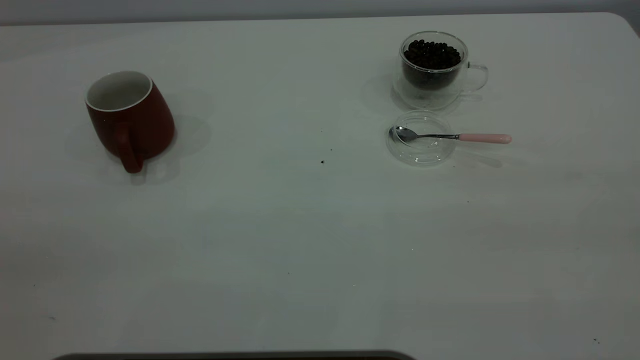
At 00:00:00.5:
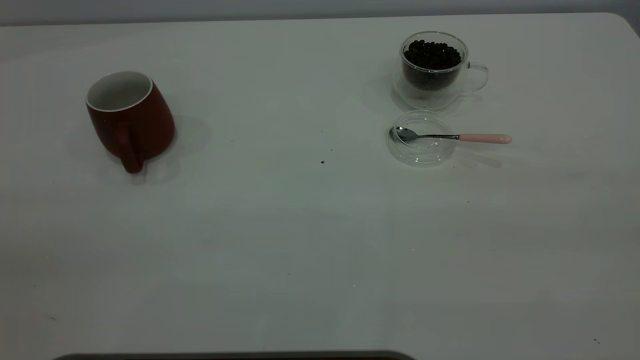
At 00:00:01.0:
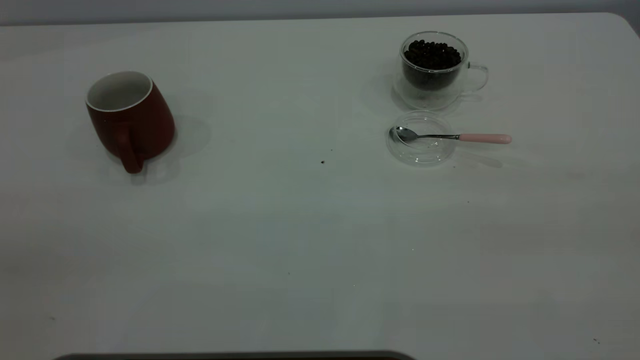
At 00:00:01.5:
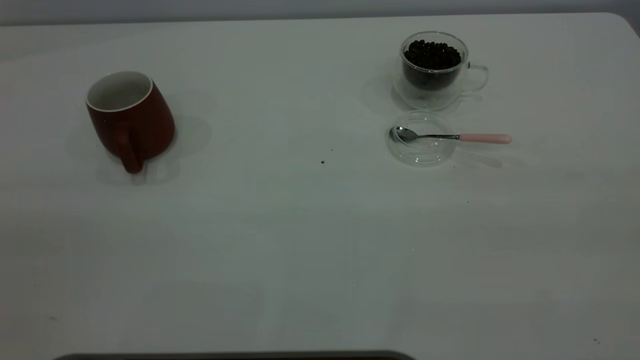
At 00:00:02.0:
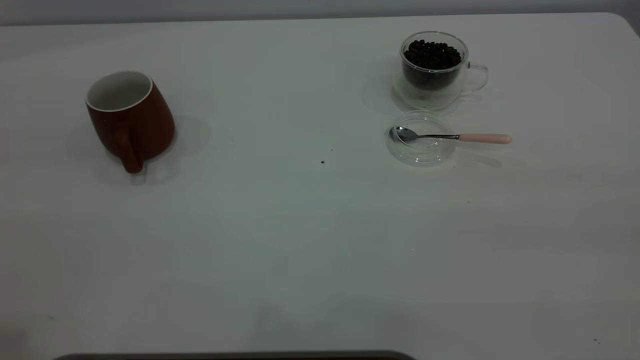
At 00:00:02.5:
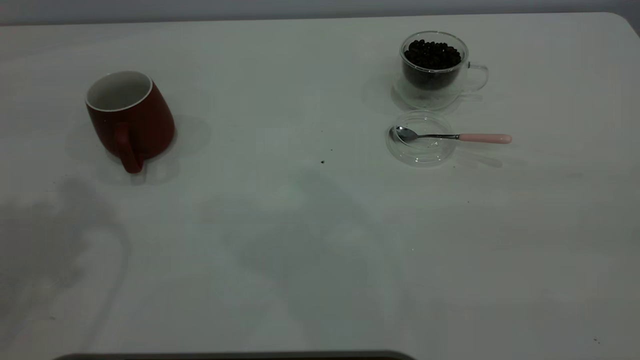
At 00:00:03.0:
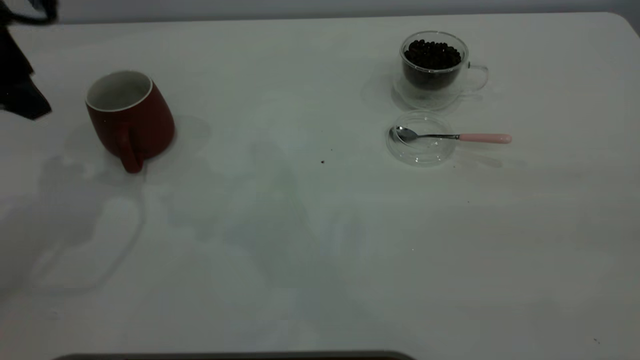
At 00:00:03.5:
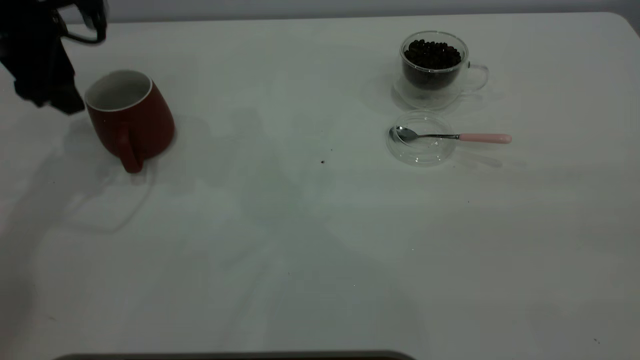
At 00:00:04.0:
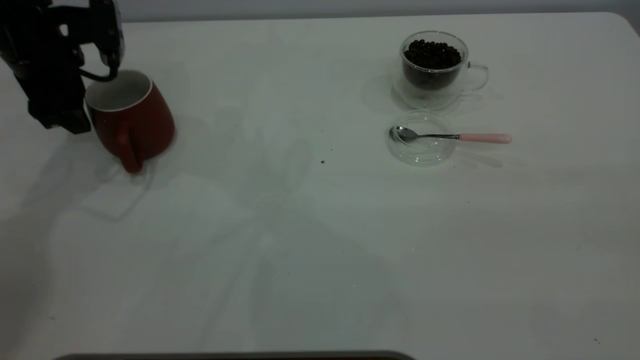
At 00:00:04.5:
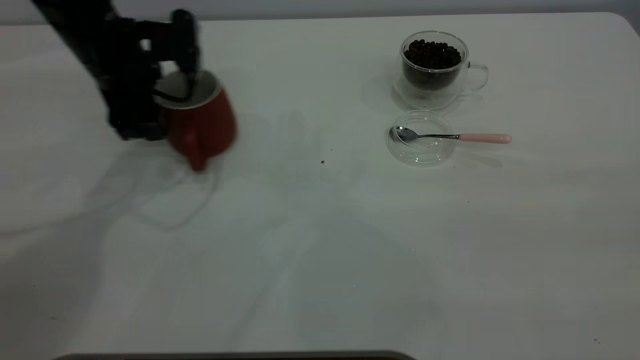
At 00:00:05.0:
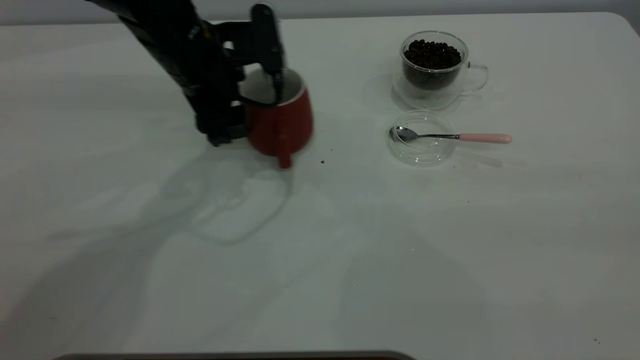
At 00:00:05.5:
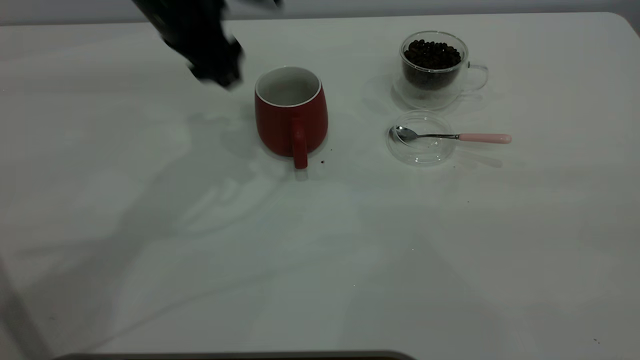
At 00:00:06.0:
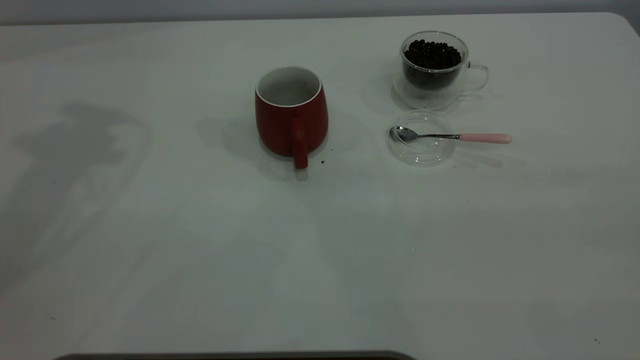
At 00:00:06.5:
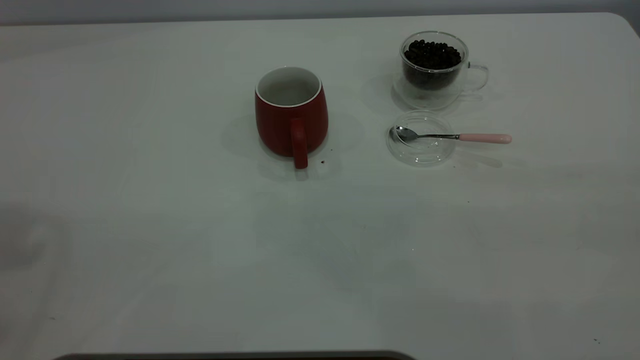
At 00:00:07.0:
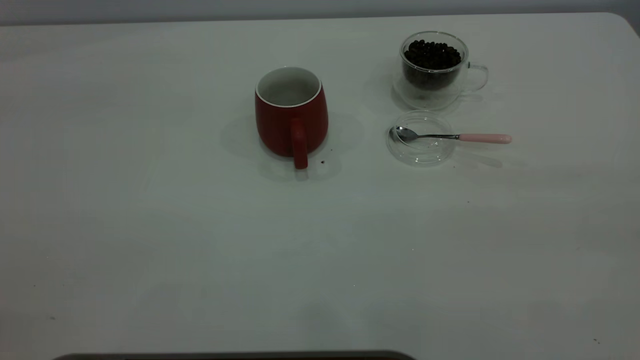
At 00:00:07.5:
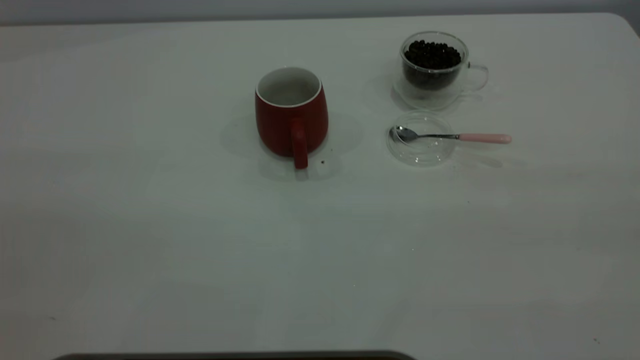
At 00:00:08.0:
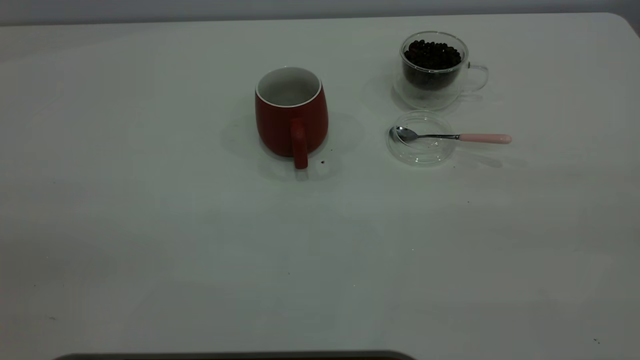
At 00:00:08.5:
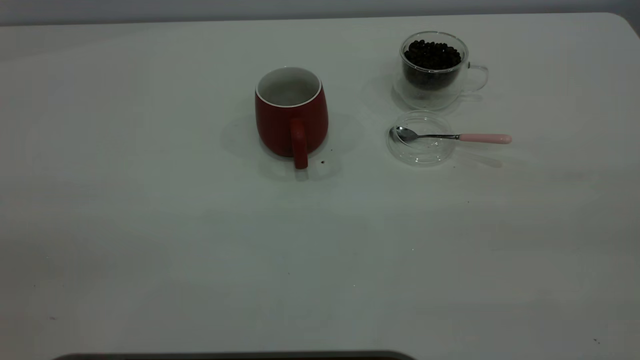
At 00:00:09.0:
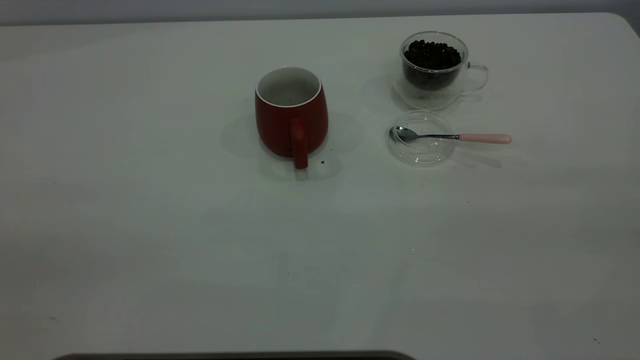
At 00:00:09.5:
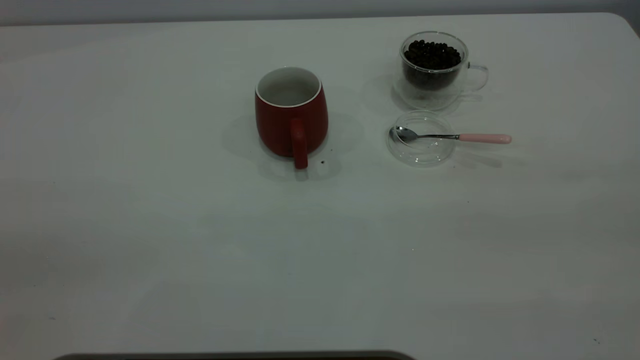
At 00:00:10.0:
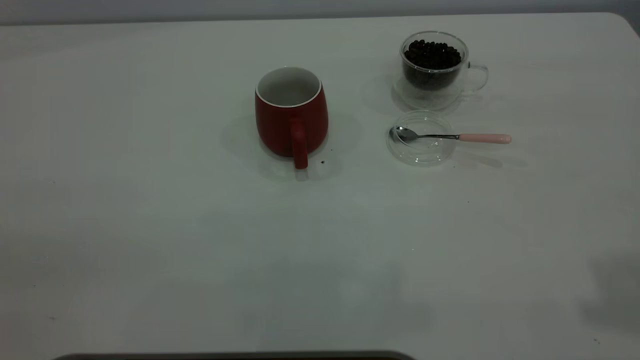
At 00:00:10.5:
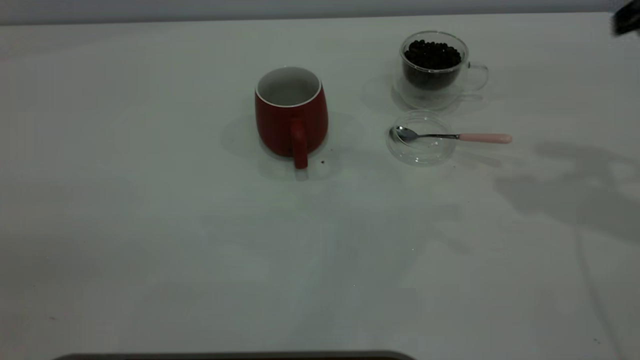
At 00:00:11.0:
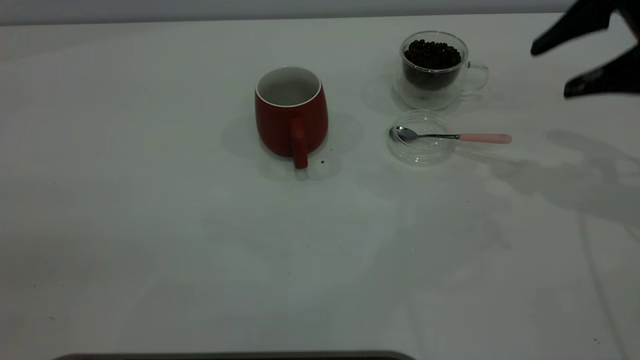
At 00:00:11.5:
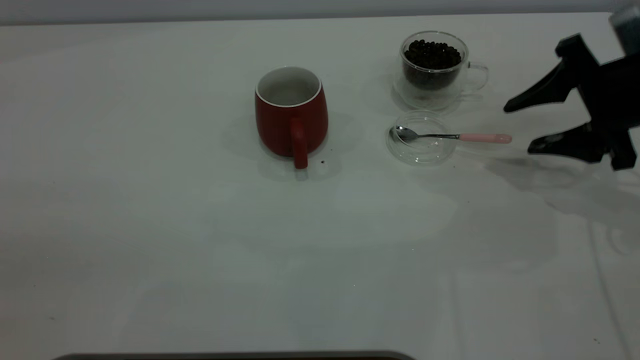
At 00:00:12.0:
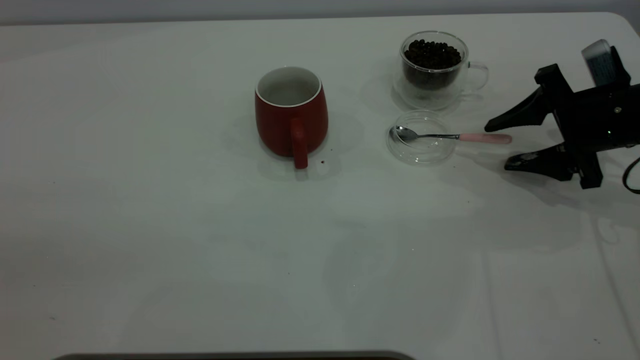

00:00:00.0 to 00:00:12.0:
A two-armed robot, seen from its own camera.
Task of the whole recording: the left gripper place the red cup in the center of the table, the right gripper take the pink spoon from the cup lid and scoop out the coffee beans from the coffee cup and put them into the red cup, the right gripper put the spoon back into the cup lid.
Step, 00:00:00.0 to 00:00:05.0: Move the cup to the center of view.
00:00:02.0 to 00:00:04.0: The left gripper goes roughly 40 cm forward and downward.
00:00:04.0 to 00:00:06.0: The left gripper heads upward, covering about 25 cm.
00:00:10.0 to 00:00:12.0: The right gripper is displaced downward and forward by approximately 40 cm.

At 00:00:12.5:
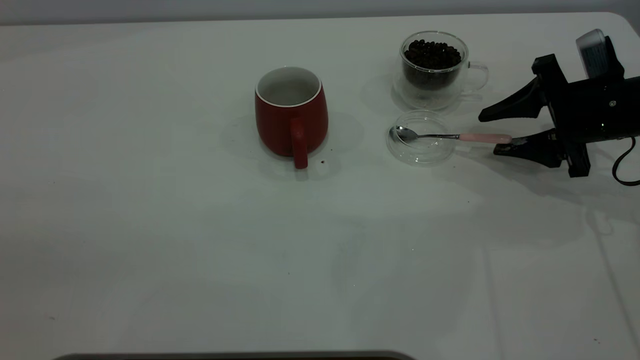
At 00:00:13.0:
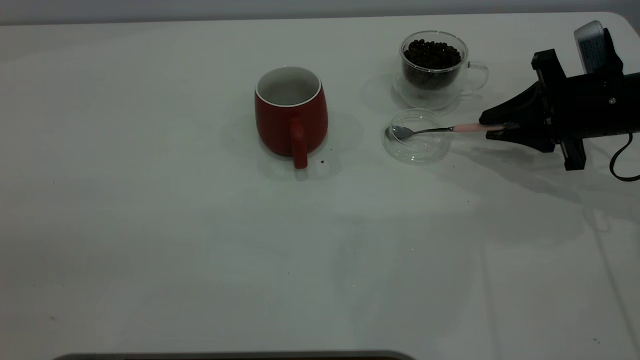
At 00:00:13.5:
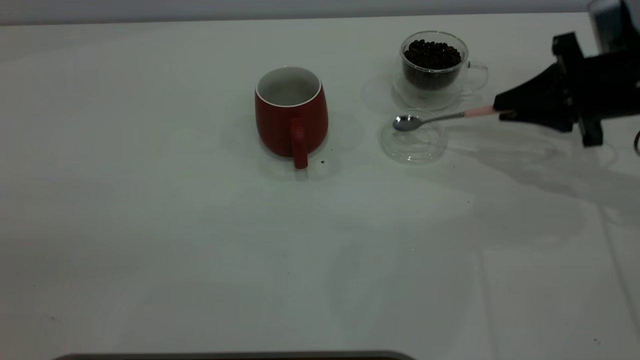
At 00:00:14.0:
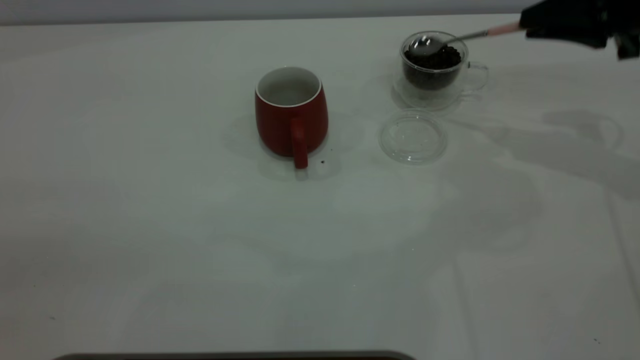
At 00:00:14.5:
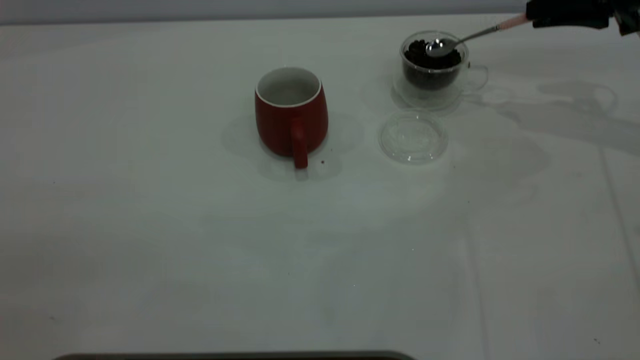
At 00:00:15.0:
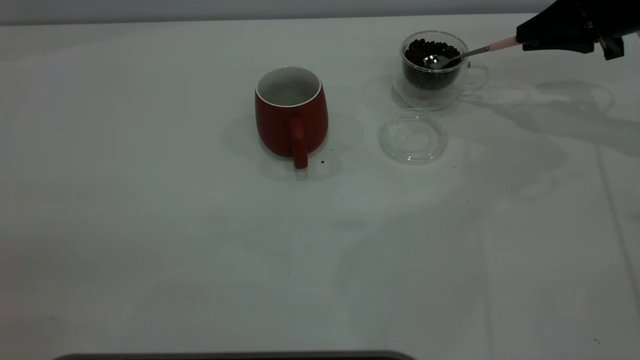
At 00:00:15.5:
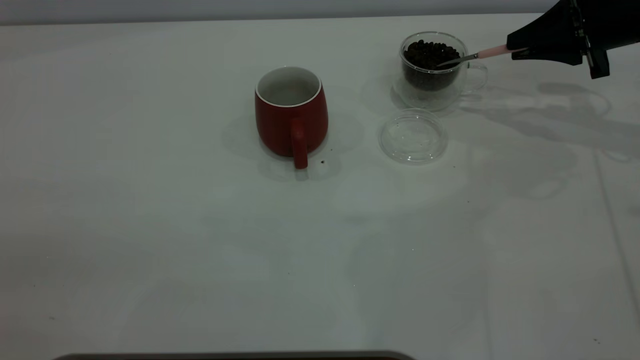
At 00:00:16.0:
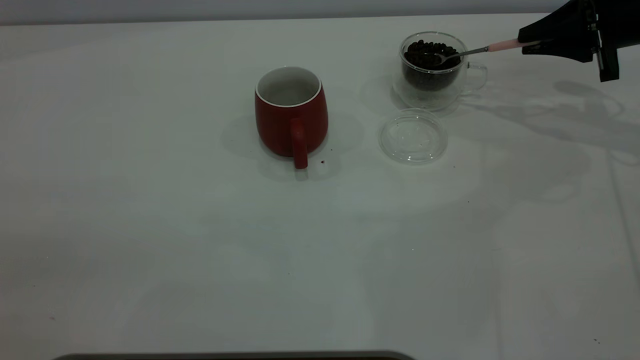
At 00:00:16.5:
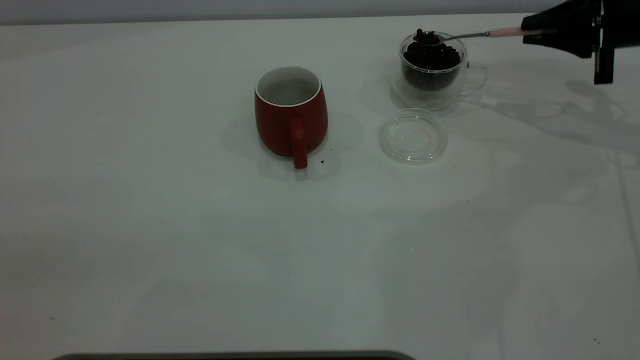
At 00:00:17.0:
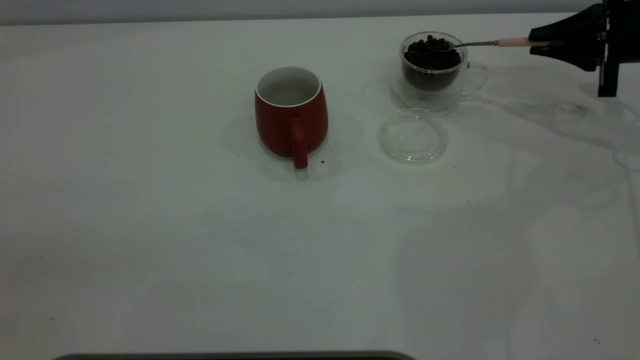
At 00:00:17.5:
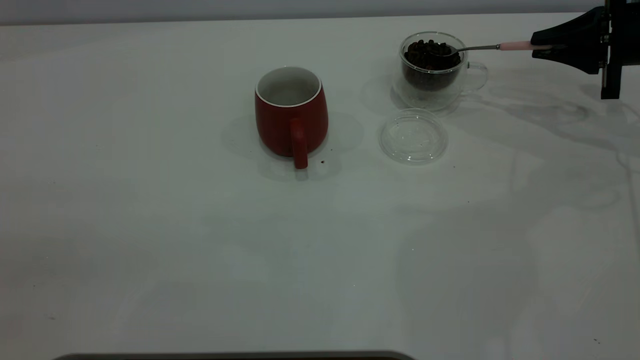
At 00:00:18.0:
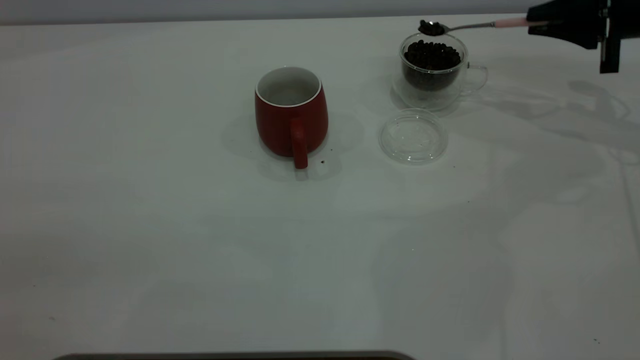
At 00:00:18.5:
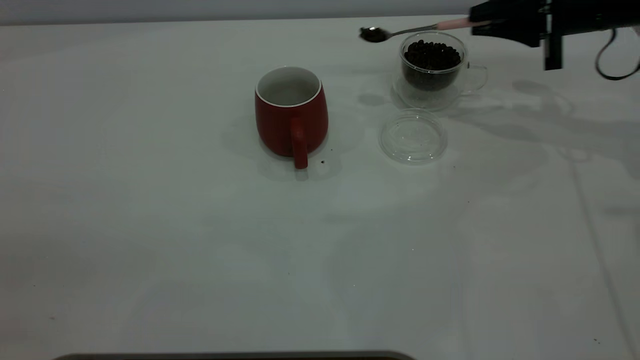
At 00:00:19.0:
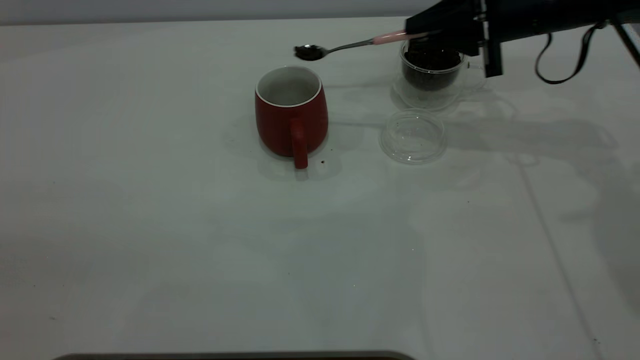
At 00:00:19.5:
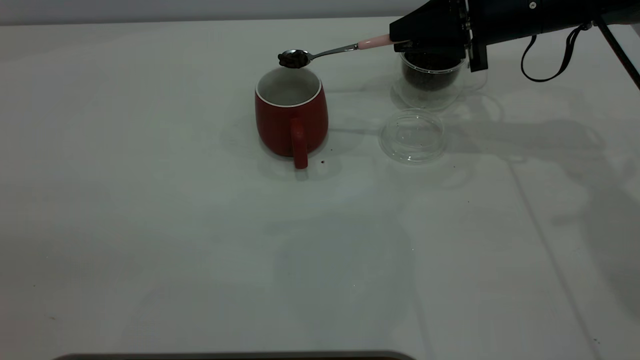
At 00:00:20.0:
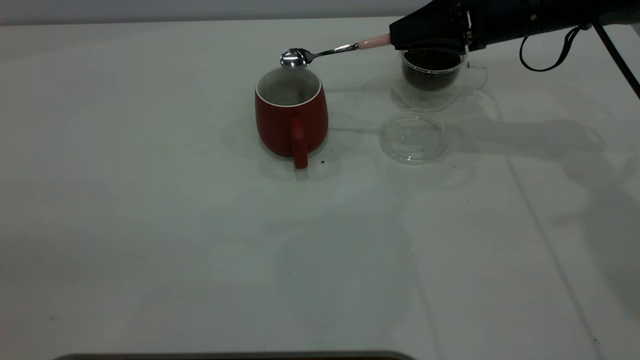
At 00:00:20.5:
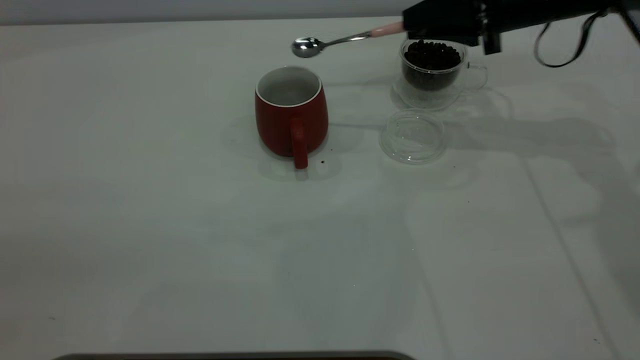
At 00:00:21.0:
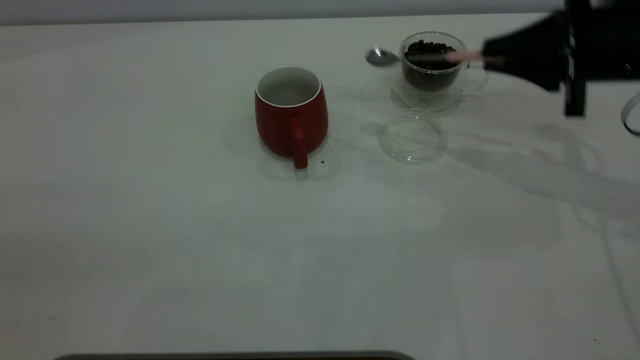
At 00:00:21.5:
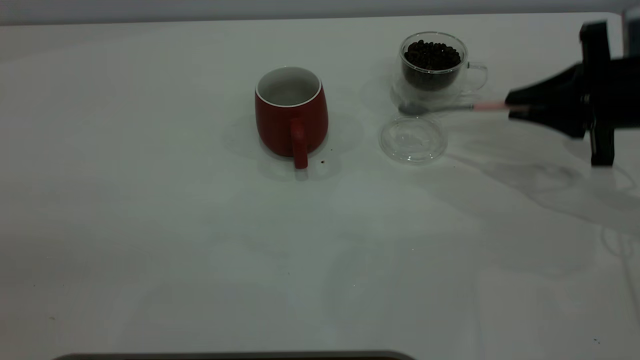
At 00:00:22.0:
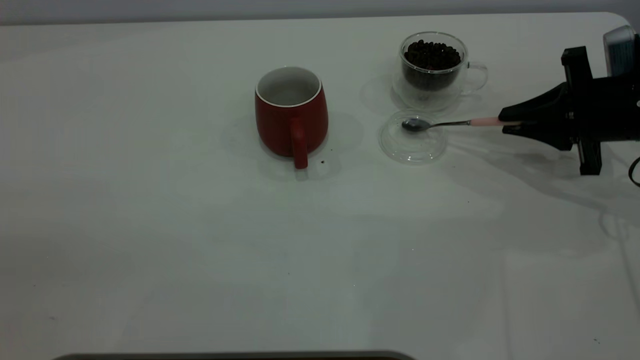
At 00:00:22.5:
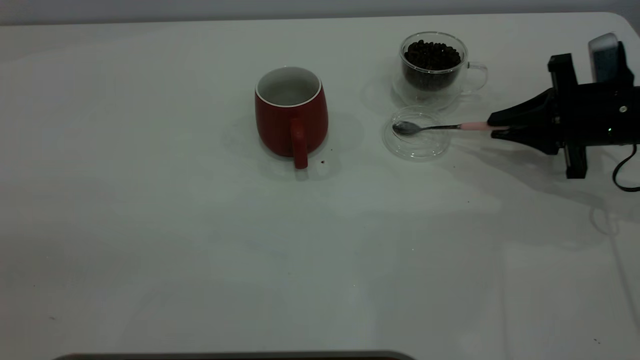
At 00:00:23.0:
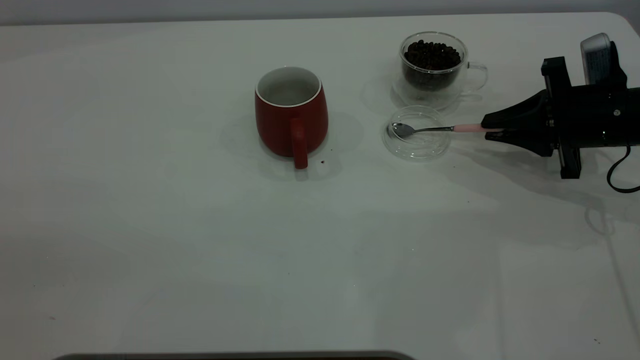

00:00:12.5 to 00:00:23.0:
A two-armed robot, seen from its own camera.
Task of the whole recording: the left gripper place the red cup in the center of the table, the right gripper take the pink spoon from the cup lid and scoop out the coffee beans from the coffee cup and put them into the red cup, the right gripper put the spoon back into the cup lid.
Step, 00:00:14.0 to 00:00:20.0: Scoop a spoonful of beans into the cup.
00:00:12.5 to 00:00:14.5: The right gripper heads upward and forward, covering about 15 cm, and closes.
00:00:14.5 to 00:00:16.5: The right gripper goes roughly 5 cm downward.
00:00:16.5 to 00:00:19.0: The right gripper goes approximately 15 cm to the left.
00:00:19.0 to 00:00:21.0: The right gripper heads backward and to the right, covering some 10 cm.
00:00:21.0 to 00:00:23.0: The right gripper goes some 10 cm downward.
